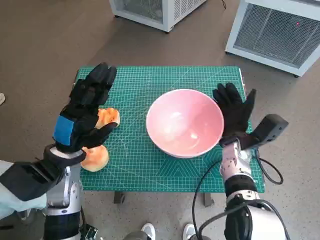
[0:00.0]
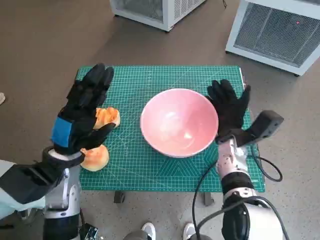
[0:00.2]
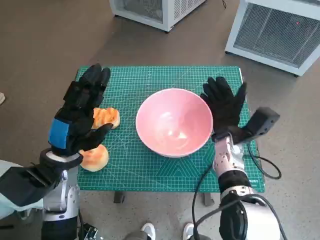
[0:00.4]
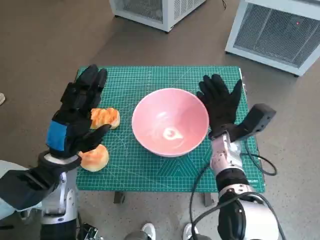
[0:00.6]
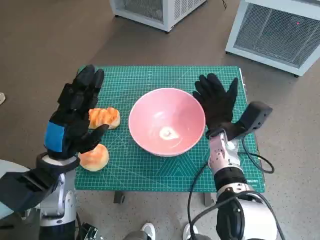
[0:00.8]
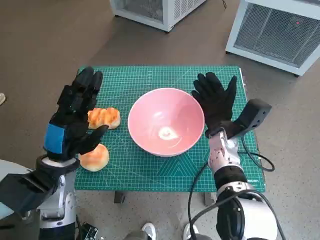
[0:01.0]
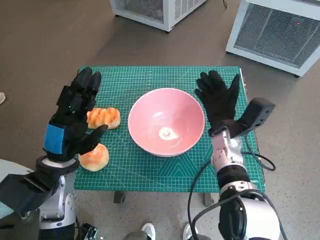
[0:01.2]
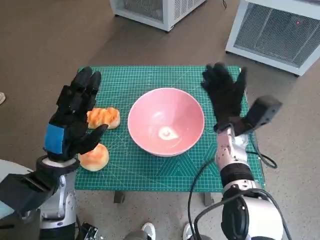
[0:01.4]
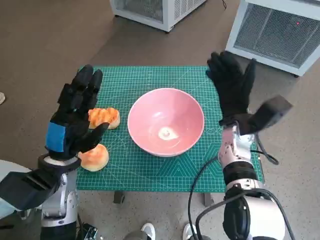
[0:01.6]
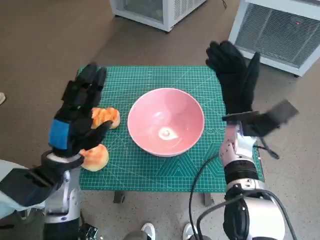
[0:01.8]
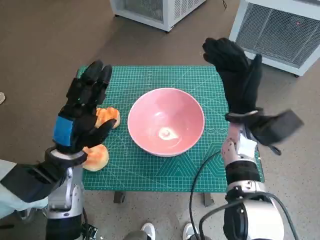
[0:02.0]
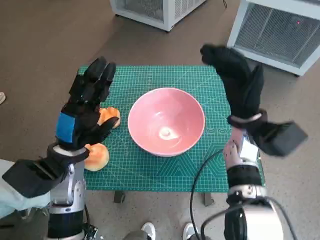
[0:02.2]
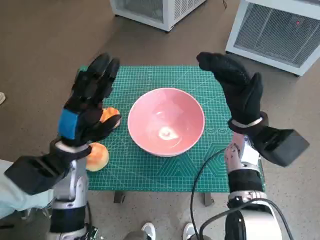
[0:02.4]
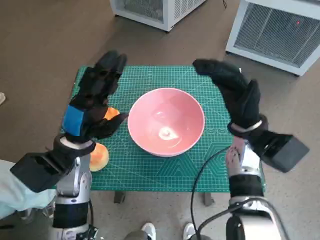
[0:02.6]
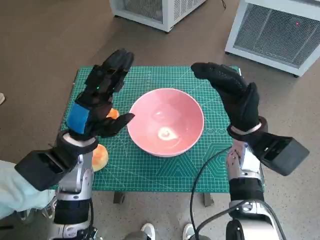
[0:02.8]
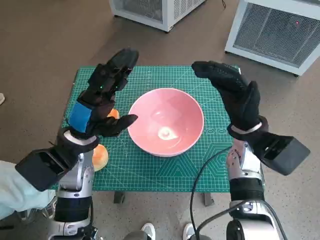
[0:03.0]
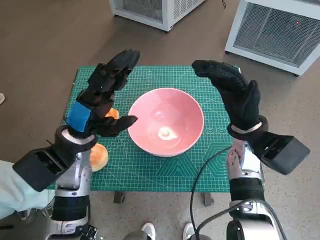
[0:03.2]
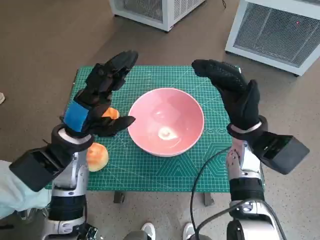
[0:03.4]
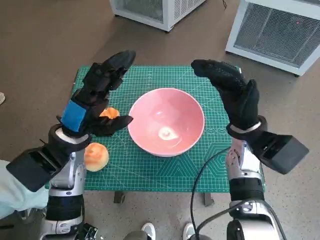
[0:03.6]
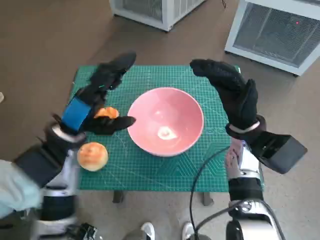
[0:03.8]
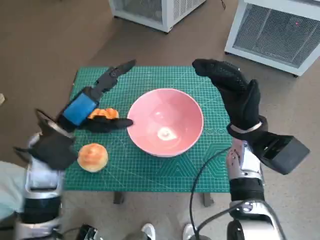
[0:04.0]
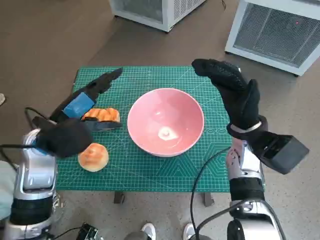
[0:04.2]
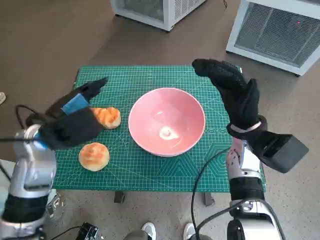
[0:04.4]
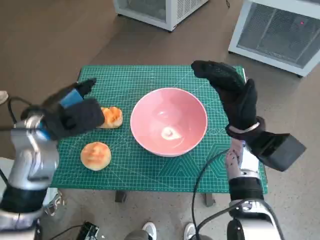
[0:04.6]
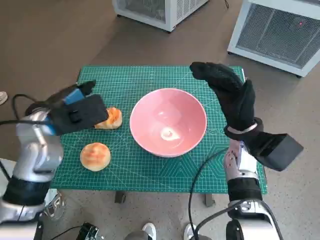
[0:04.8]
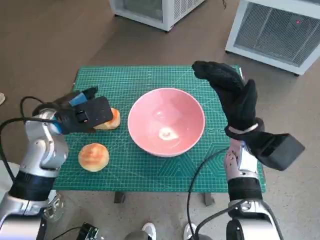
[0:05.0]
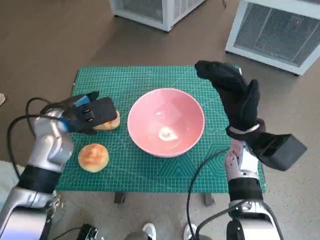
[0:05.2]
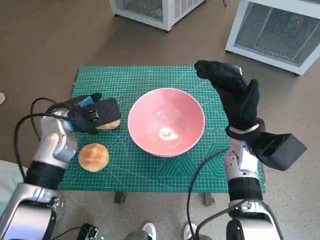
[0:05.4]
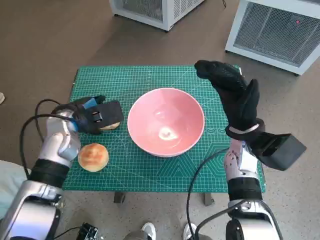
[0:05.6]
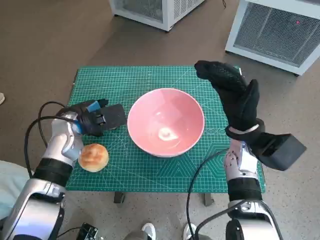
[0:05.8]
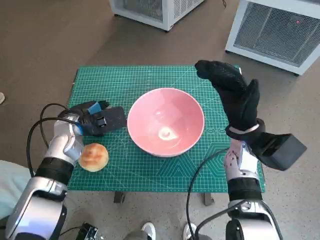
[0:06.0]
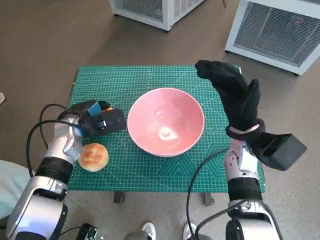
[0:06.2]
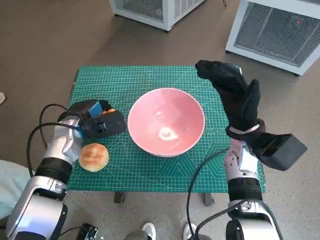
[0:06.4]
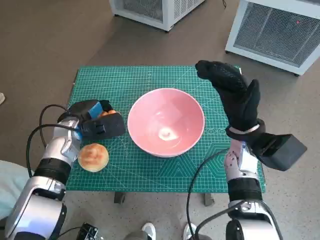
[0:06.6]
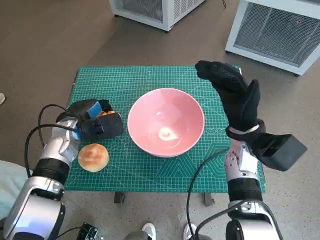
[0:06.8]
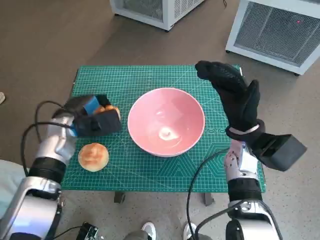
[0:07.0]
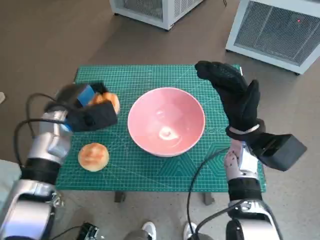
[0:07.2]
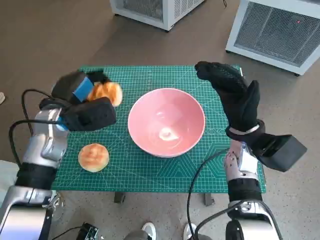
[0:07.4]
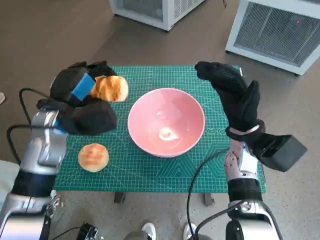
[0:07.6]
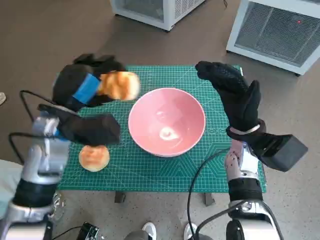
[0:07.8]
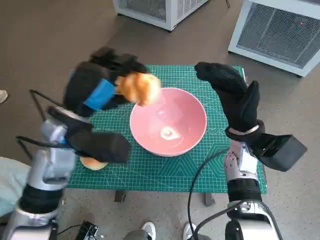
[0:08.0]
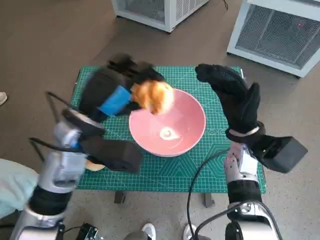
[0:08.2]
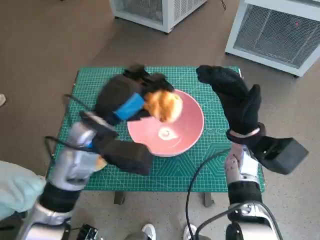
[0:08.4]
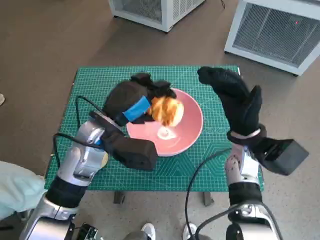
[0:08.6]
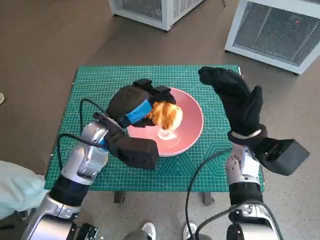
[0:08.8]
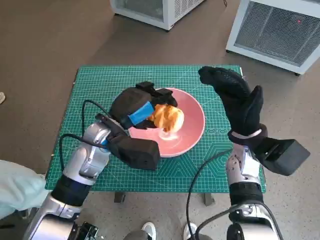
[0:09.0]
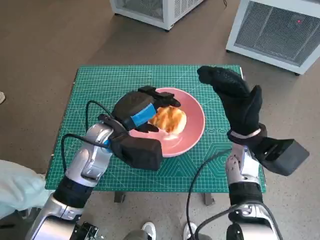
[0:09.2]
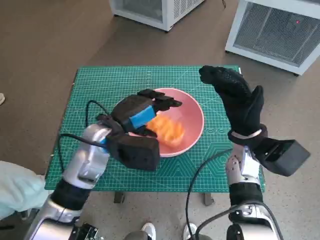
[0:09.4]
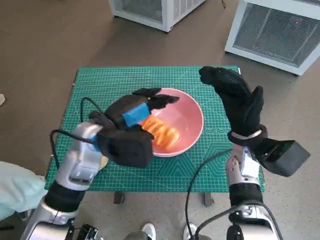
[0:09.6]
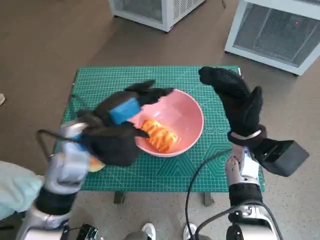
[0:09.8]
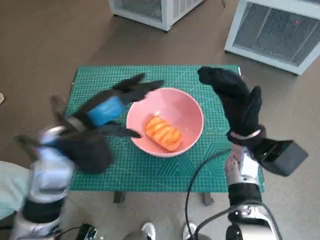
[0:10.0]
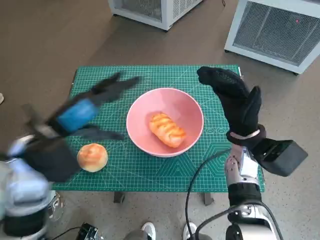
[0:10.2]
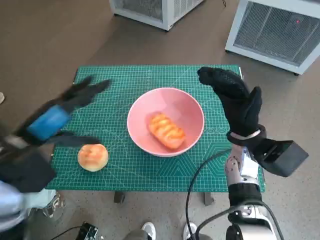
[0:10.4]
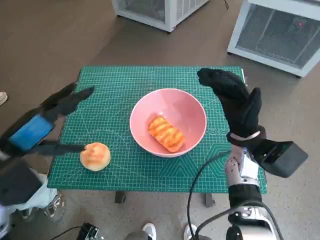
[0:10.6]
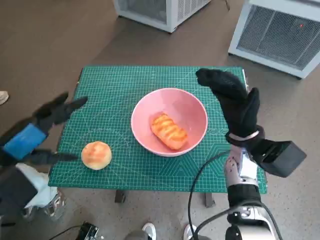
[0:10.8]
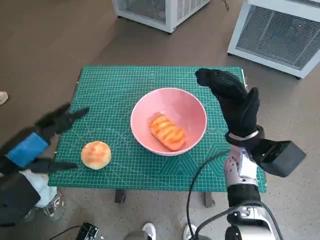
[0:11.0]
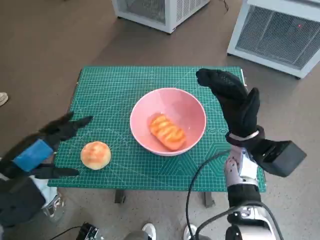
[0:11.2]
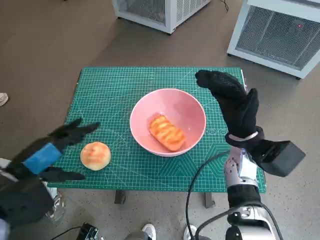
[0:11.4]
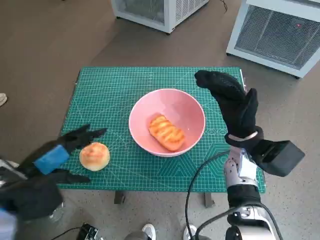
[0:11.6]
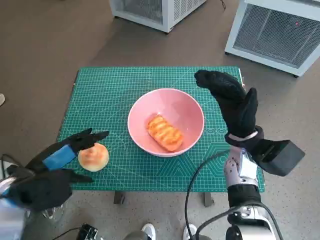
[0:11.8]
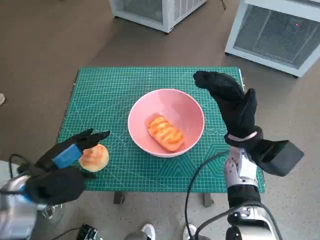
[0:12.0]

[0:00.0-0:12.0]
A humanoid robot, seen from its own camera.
Task of the whole recording: Push the bowl into the center of the table and put the bread into the bowl.
Step, 0:01.4 to 0:06.2: Grasp the long bread with left hand.
Step, 0:06.4 to 0:09.8: Place the long bread in pink bowl with left hand.
0:00.0 to 0:01.6: The right hand ends up some 5 cm from where it was.
0:01.6 to 0:03.0: The left hand moves some 5 cm.
0:03.0 to 0:04.4: The left hand shifts by roughly 5 cm.
0:04.4 to 0:06.0: The left hand is displaced downward and forward by about 10 cm.
0:06.0 to 0:07.6: The left hand travels upward by approximately 5 cm.
0:07.6 to 0:09.0: The left hand travels to the right by roughly 10 cm.
0:09.0 to 0:10.4: The left hand is displaced to the left, backward and upward by approximately 15 cm.
0:10.4 to 0:12.0: The left hand heads downward, covering roughly 10 cm.

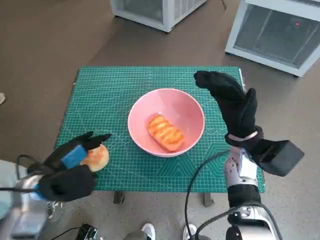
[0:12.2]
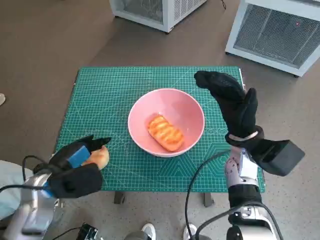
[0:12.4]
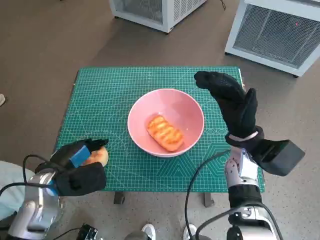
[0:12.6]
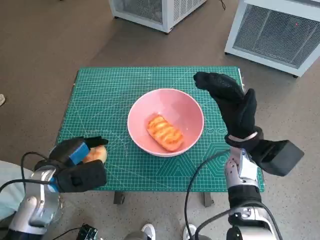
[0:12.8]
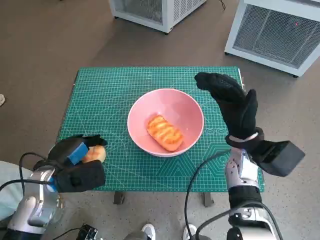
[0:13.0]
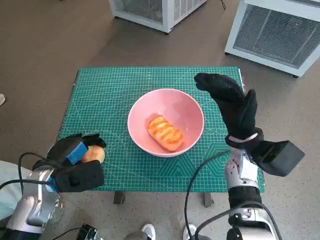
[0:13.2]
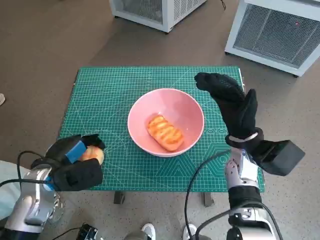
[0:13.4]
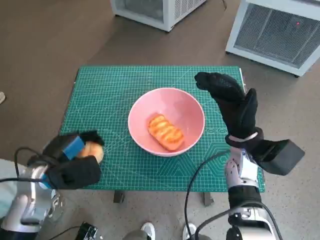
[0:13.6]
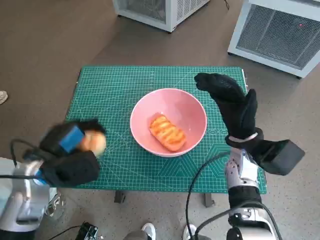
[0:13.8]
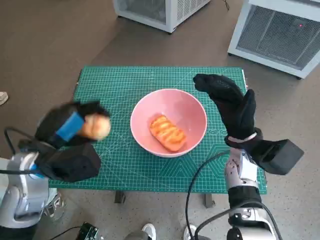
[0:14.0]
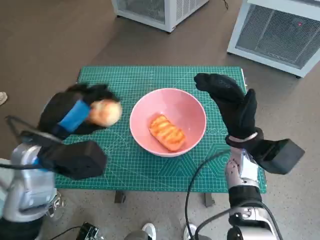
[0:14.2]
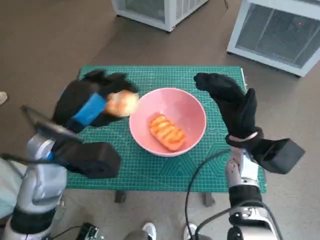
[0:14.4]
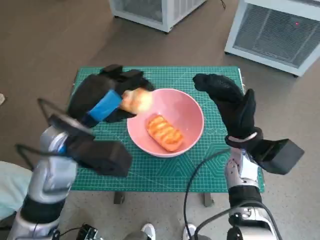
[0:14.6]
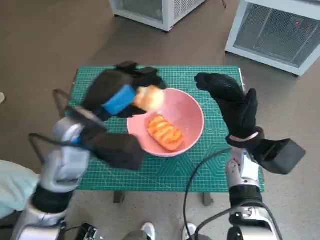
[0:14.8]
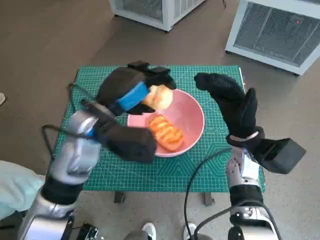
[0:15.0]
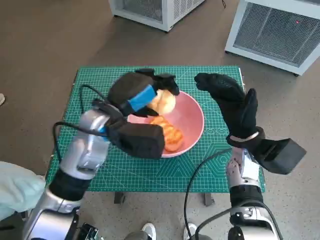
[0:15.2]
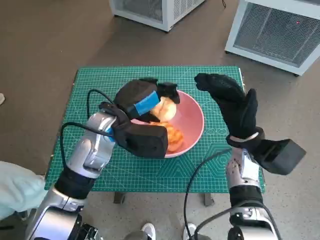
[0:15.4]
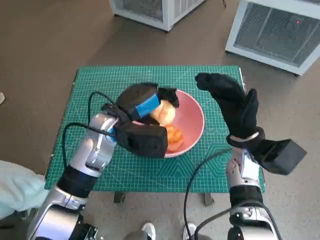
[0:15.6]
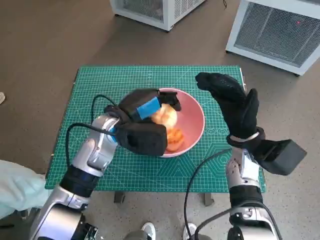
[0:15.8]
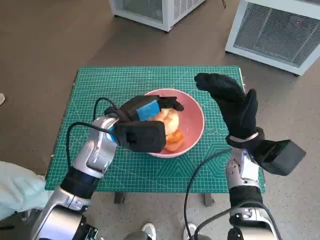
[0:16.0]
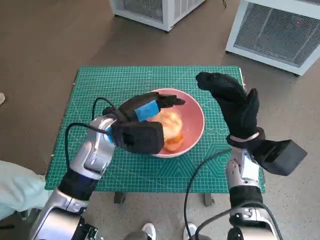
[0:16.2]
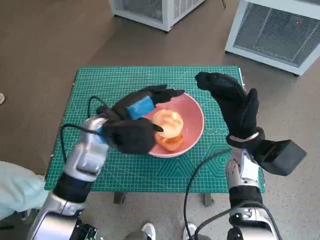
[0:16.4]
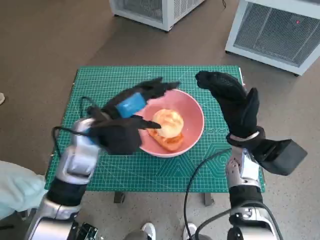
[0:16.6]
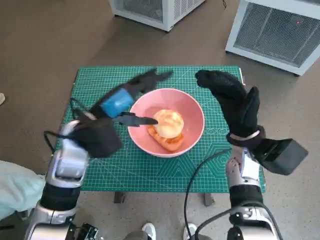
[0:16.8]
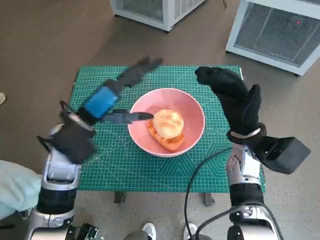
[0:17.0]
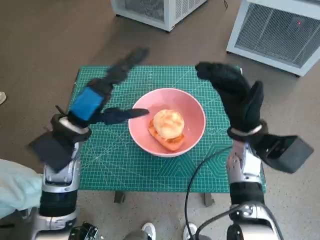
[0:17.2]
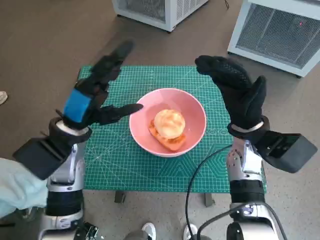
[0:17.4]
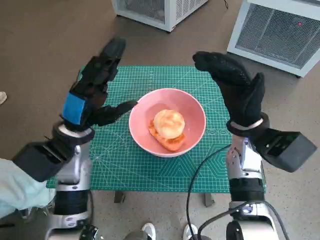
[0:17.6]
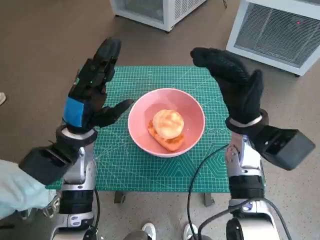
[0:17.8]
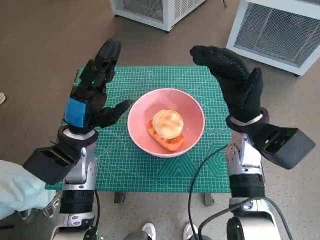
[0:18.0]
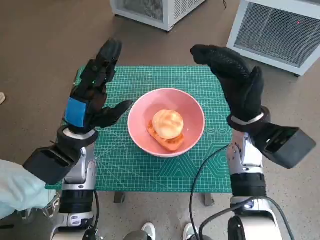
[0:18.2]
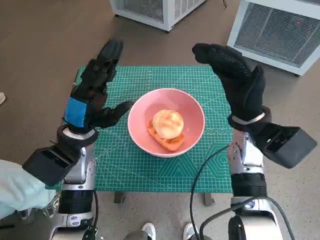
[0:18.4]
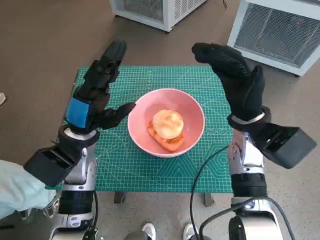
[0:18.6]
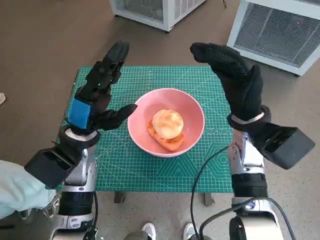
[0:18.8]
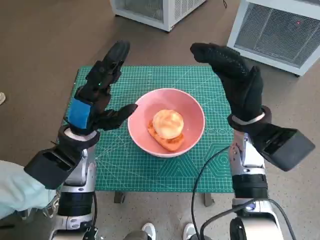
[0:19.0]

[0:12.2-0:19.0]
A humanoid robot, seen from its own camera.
Task of the whole recording: Push the bowl into the center of the table and put the bread into the bowl.
Step, 0:12.8 to 0:16.6: Place the round bread in pink bowl with left hand.
0:12.2 to 0:13.6: The hands make only small movements.
0:13.6 to 0:15.0: The left hand moves to the right, upward and forward, about 15 cm.
0:15.0 to 0:16.2: The left hand is displaced downward by about 5 cm.
0:16.2 to 0:17.6: The left hand moves to the left, approximately 5 cm.
0:17.6 to 0:19.0: The hands make only small movements.
